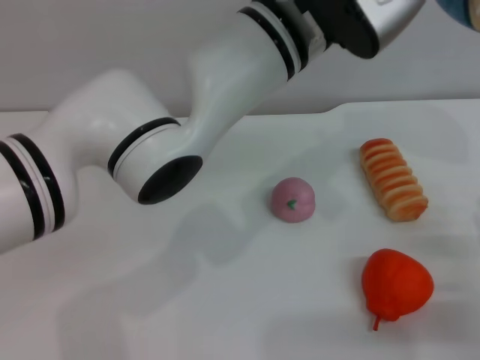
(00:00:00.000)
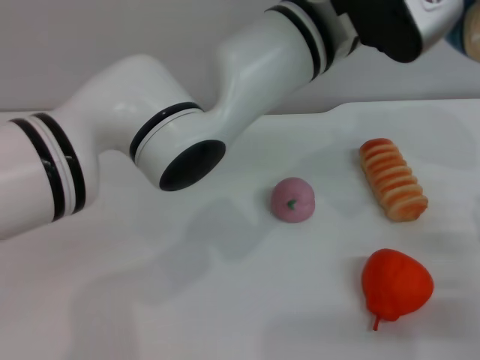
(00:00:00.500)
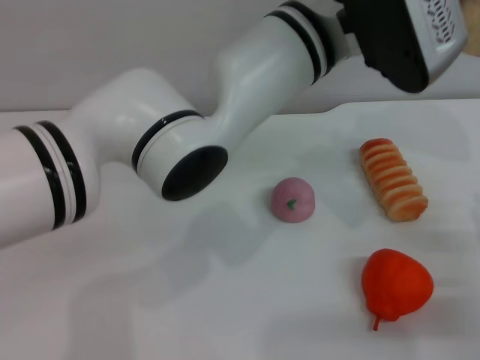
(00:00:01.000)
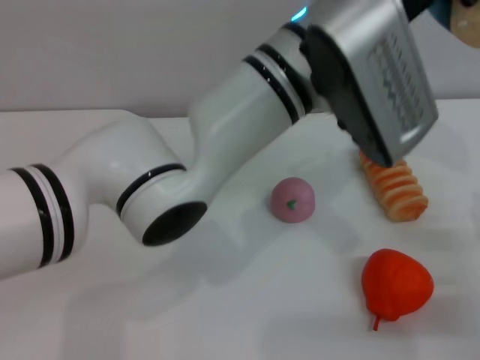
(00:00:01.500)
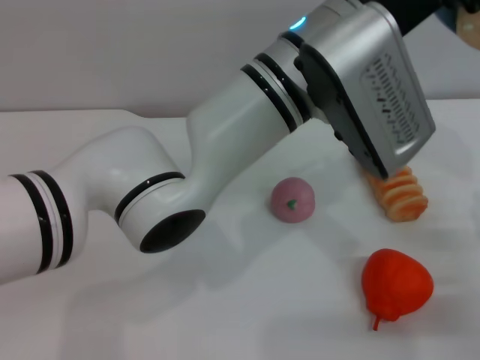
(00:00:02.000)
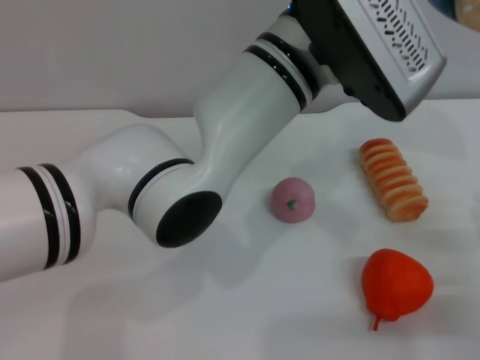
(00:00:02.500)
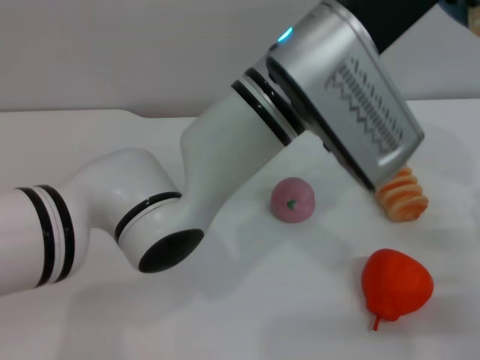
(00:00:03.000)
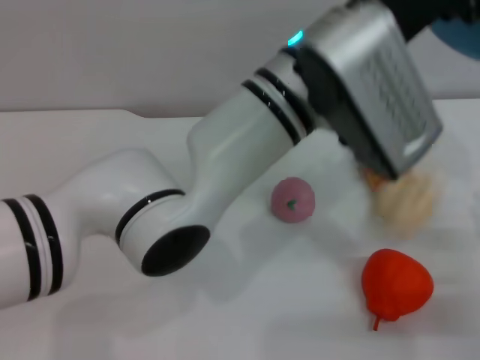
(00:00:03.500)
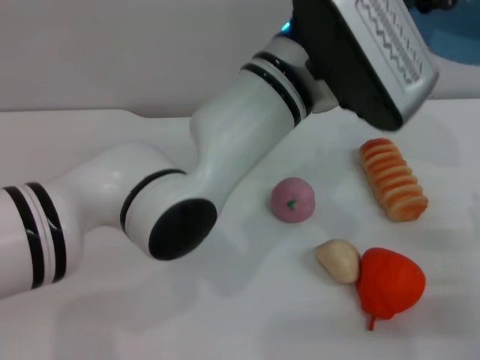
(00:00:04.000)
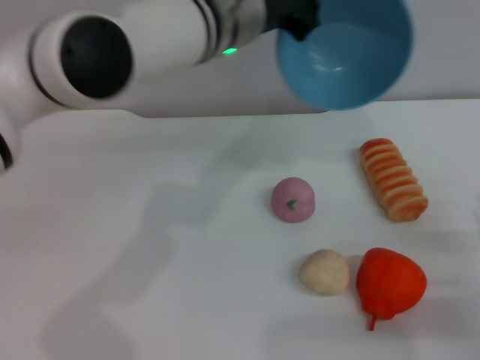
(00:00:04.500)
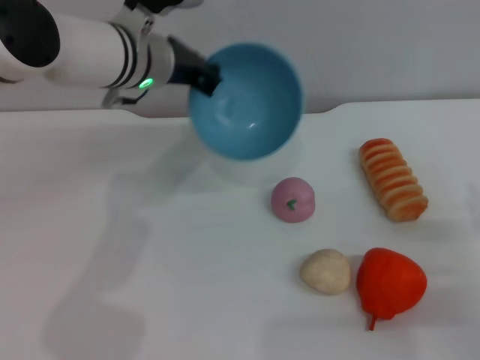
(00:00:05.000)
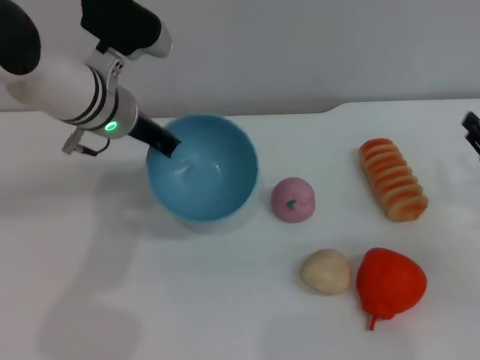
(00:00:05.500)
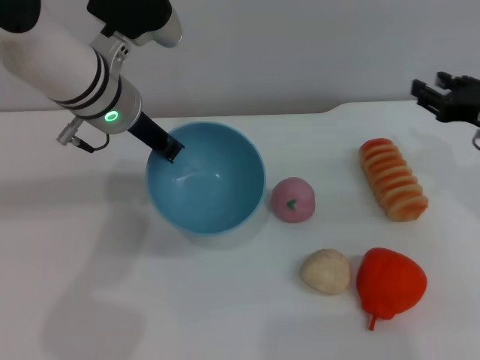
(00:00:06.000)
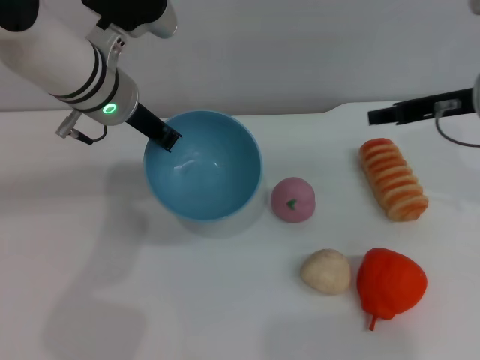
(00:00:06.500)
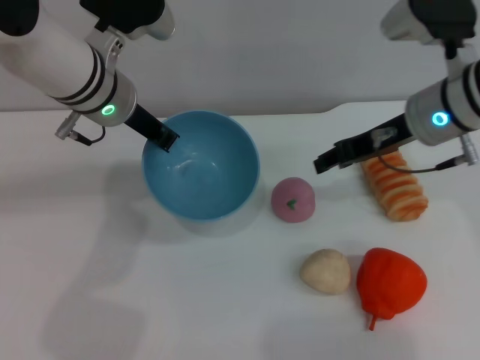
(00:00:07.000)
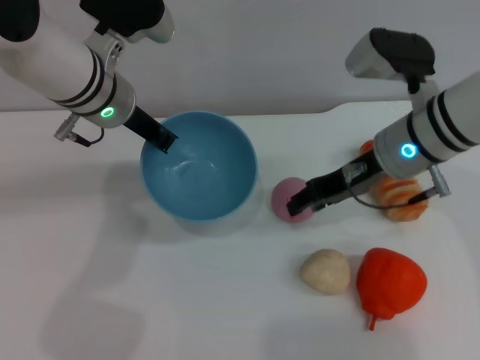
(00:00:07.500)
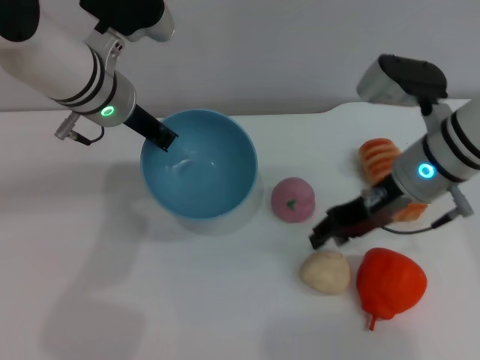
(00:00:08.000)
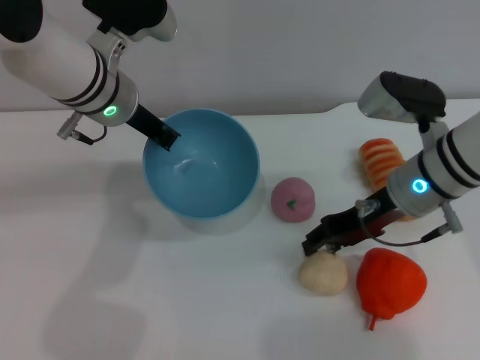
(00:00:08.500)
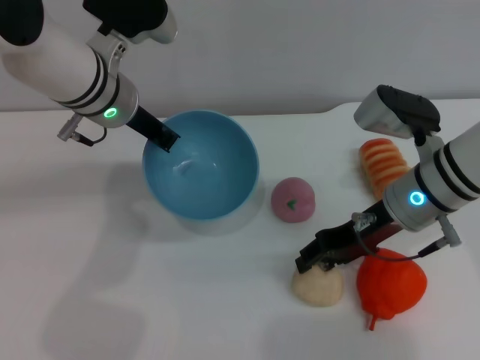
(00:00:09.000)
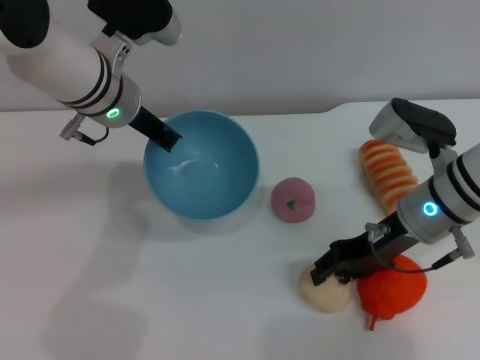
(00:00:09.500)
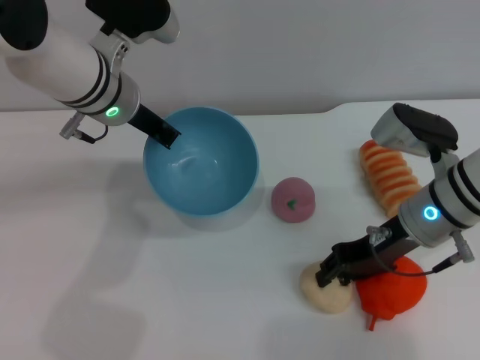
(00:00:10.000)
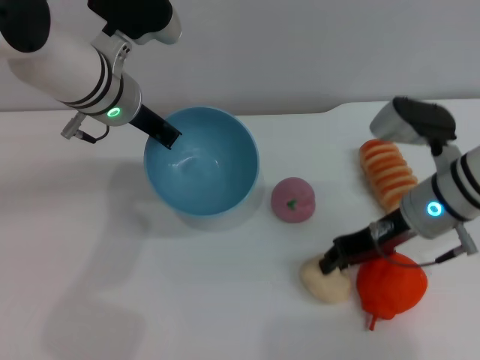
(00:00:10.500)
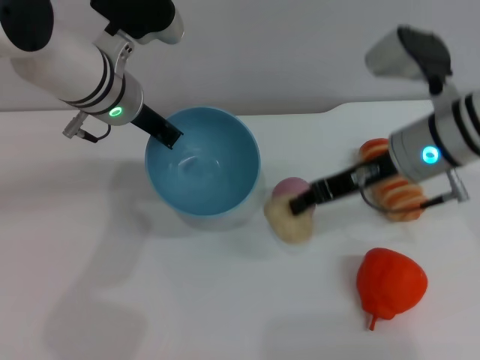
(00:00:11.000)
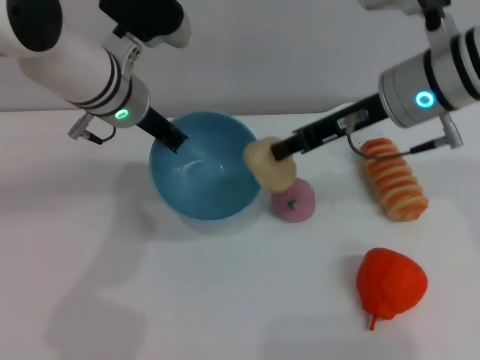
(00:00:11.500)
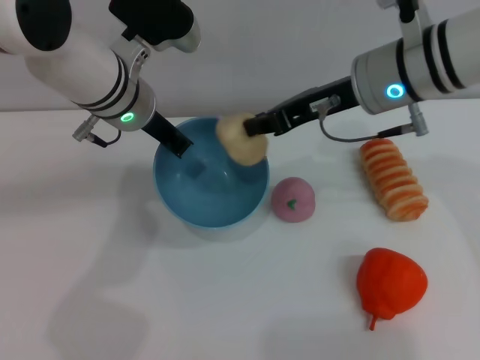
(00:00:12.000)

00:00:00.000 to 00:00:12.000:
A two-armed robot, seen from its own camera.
Task of the whole recording: put the egg yolk pastry into the blue bowl and pour it out repeatedly.
Step, 00:00:00.000 to 00:00:03.500: Pour the egg yolk pastry out of bowl.
Step, 00:00:04.000 to 00:00:11.000: Pick up the egg yolk pastry with the right gripper.
00:00:04.000 to 00:00:06.000: The left gripper travels to the left and forward by about 20 cm, while the right gripper moves forward and upward, some 15 cm.
00:00:06.000 to 00:00:08.000: The right gripper heads to the left, covering about 15 cm.
00:00:08.000 to 00:00:10.000: The grippers move only a little.
00:00:10.000 to 00:00:12.000: The right gripper shifts some 15 cm upward, to the left and forward, and closes.

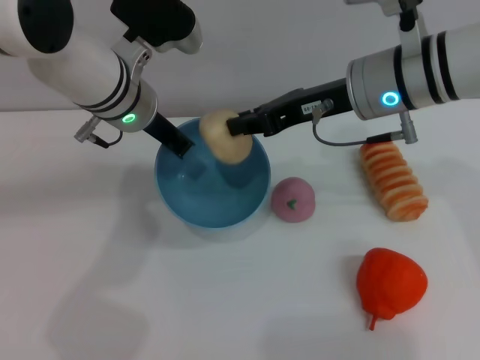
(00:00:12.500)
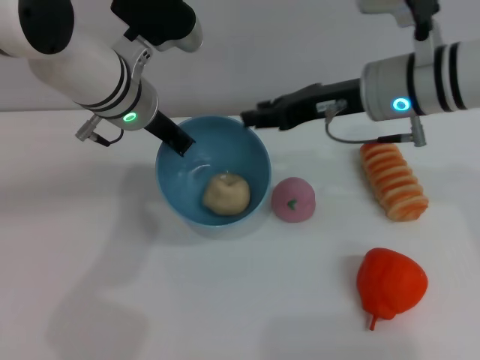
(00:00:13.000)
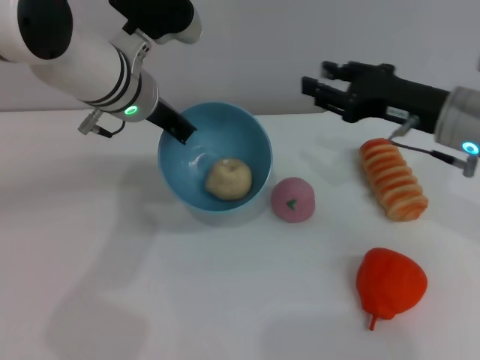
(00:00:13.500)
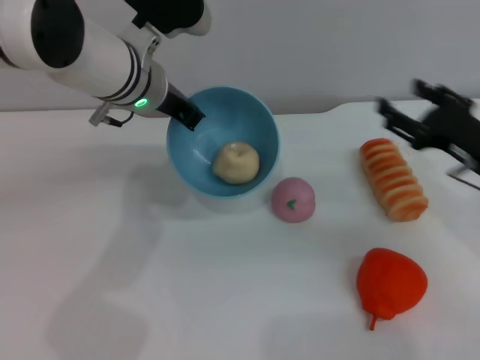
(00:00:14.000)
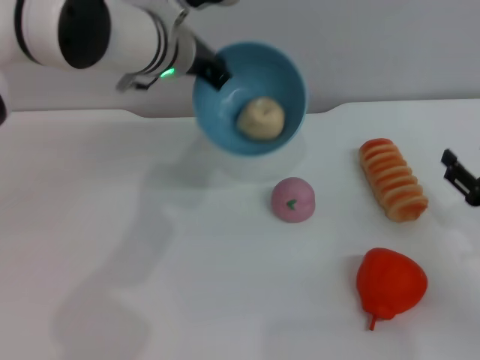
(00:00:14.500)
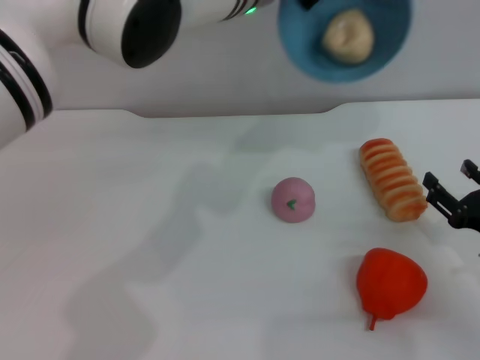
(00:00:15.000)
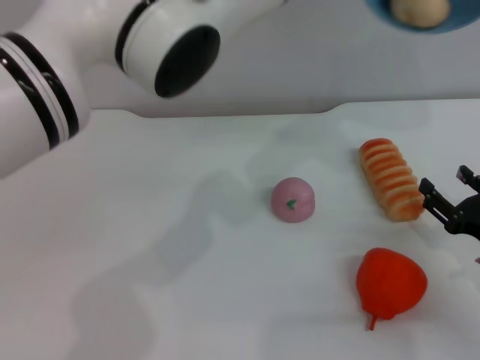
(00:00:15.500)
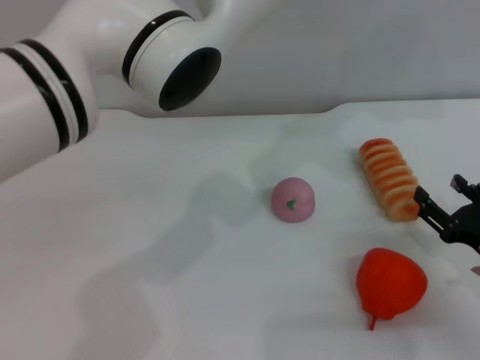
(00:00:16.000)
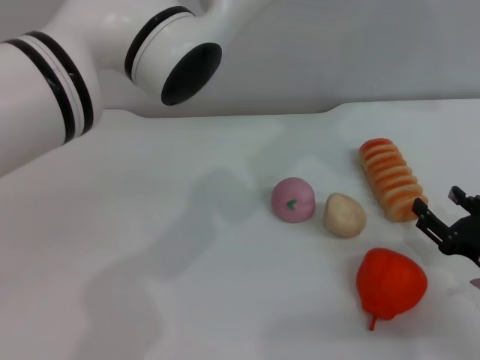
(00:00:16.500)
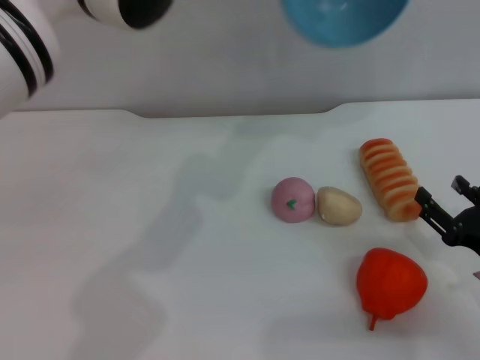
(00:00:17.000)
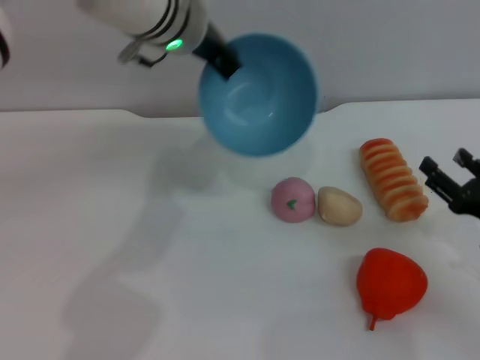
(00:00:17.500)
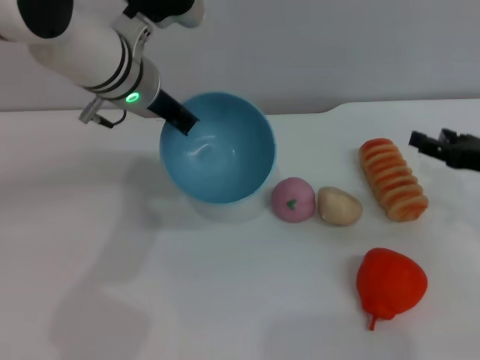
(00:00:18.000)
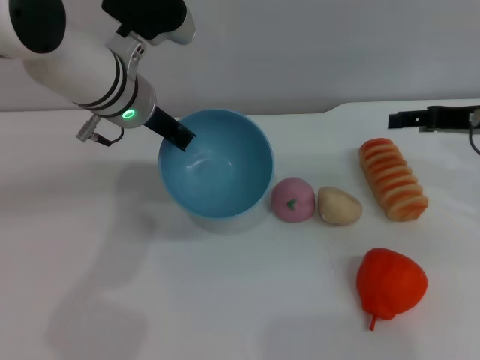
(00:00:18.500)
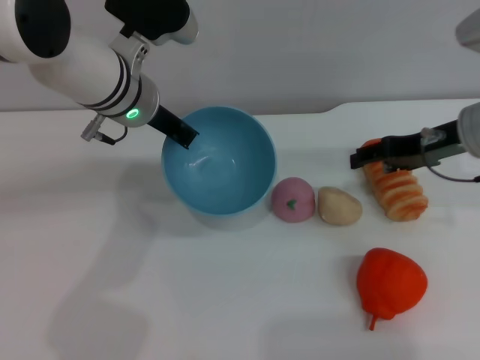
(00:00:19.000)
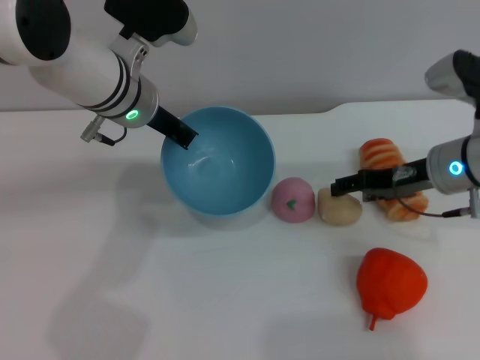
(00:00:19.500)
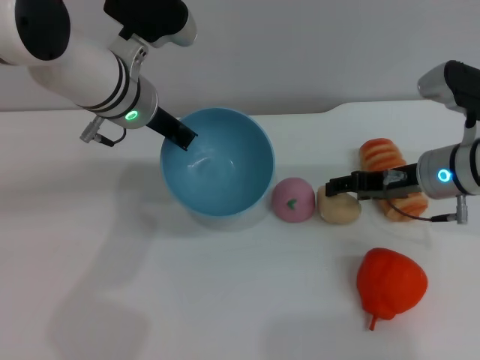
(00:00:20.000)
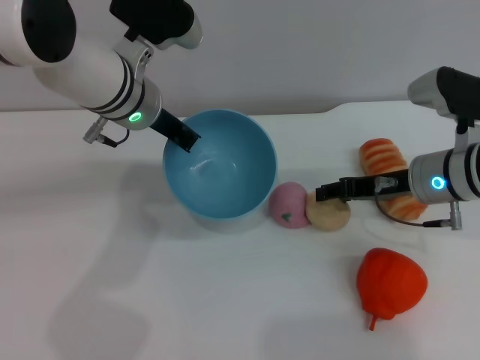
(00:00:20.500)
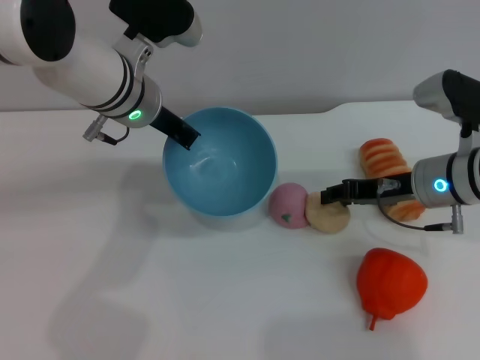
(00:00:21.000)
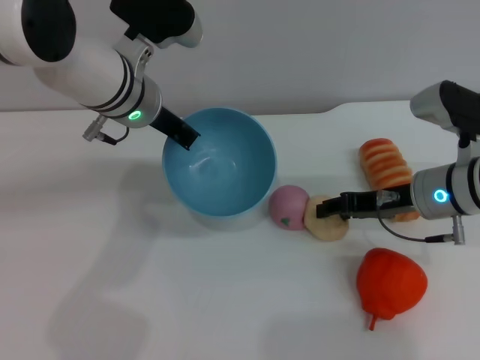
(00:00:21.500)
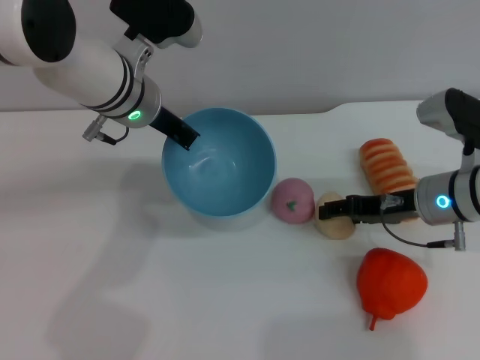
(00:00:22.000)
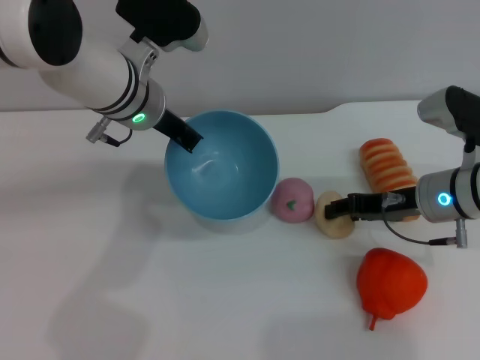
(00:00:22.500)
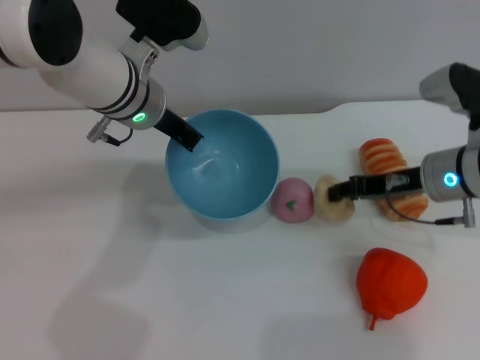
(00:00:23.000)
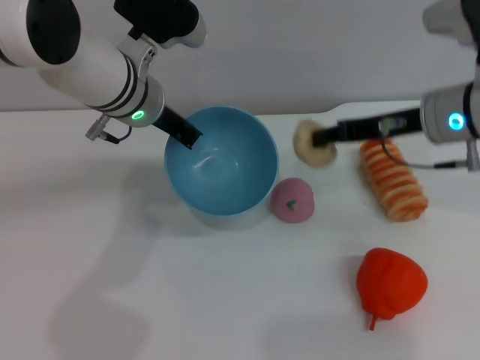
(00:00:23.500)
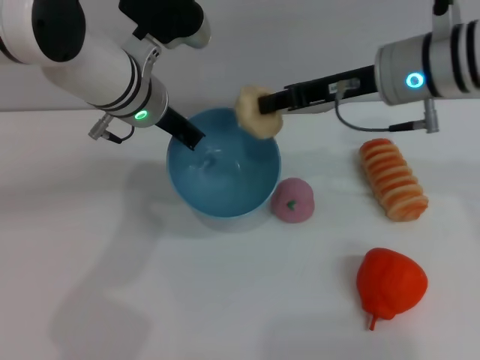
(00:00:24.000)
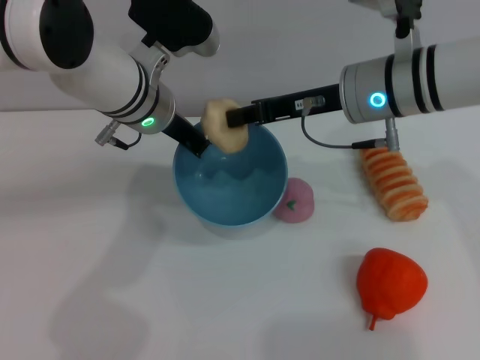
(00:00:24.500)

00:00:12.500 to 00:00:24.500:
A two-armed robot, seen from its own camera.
Task of the whole recording: put the egg yolk pastry into the blue bowl and pour it out repeatedly.
Step, 00:00:13.500 to 00:00:16.500: Pour the egg yolk pastry out of bowl.
Step, 00:00:17.000 to 00:00:23.500: Pick up the egg yolk pastry with the right gripper.
00:00:12.500 to 00:00:14.500: The right gripper shifts some 30 cm to the right, downward and backward, and opens its fingers, while the left gripper moves approximately 5 cm.
00:00:14.500 to 00:00:16.500: The left gripper travels to the right and upward by some 15 cm. Meanwhile the right gripper shifts by about 5 cm.
00:00:16.500 to 00:00:18.500: The left gripper shifts approximately 20 cm to the left and downward. Meanwhile the right gripper travels upward and forward by some 20 cm.
00:00:18.500 to 00:00:20.500: The right gripper travels downward and to the left by some 10 cm.
00:00:20.500 to 00:00:22.500: The grippers move only a little.
00:00:22.500 to 00:00:24.500: The right gripper goes roughly 15 cm upward and to the left, and closes its fingers.

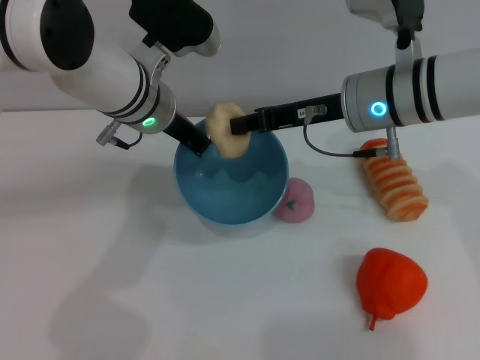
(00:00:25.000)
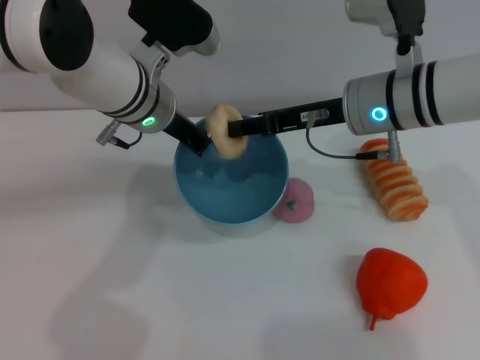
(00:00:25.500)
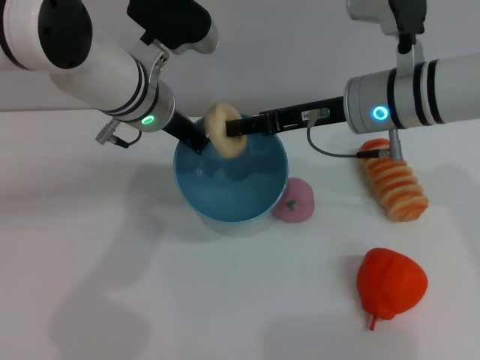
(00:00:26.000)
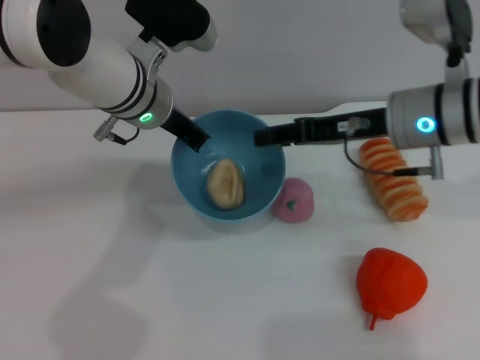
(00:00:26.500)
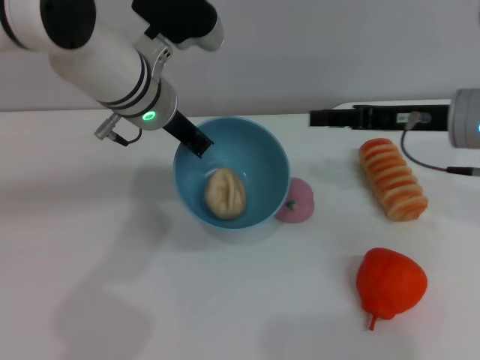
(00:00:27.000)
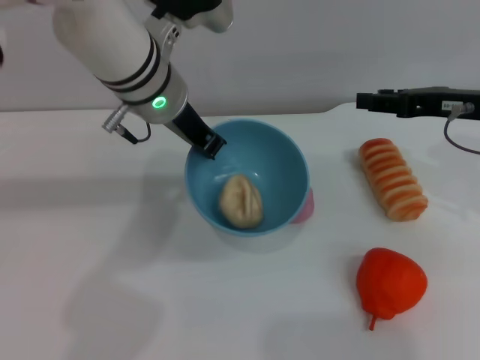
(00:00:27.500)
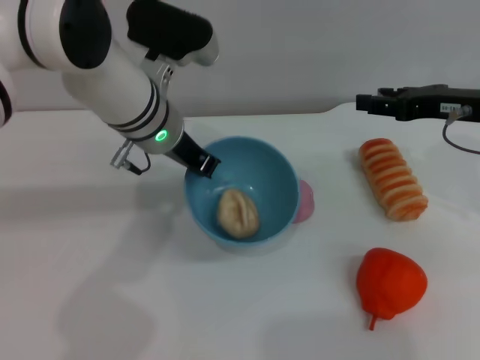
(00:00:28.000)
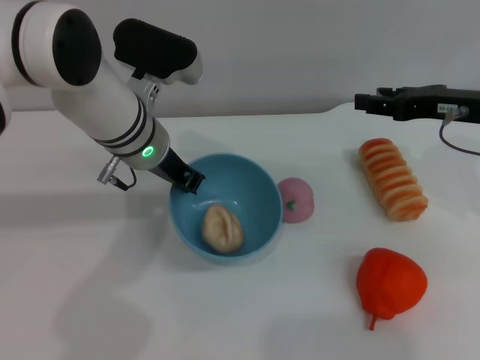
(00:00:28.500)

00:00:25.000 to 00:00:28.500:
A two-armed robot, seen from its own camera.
Task of the whole recording: put the egg yolk pastry into the blue bowl and pour it out repeatedly.
00:00:25.000 to 00:00:27.000: The right gripper travels to the right by some 10 cm, and opens.
